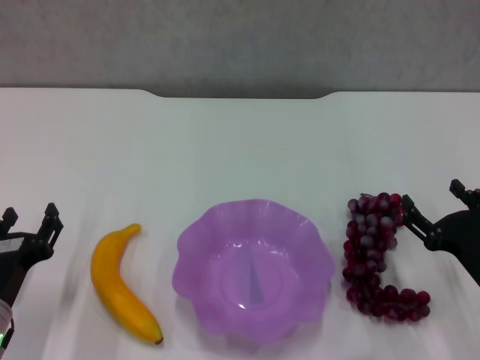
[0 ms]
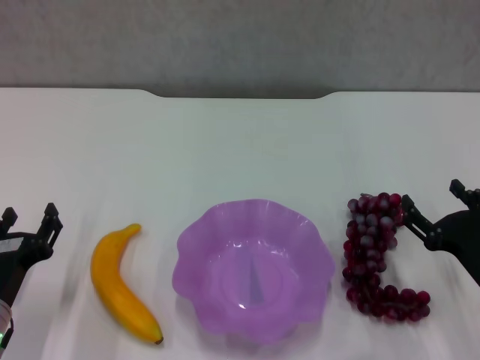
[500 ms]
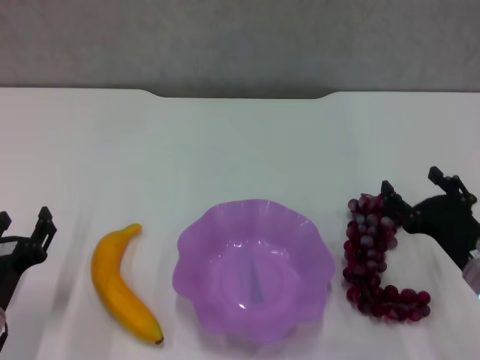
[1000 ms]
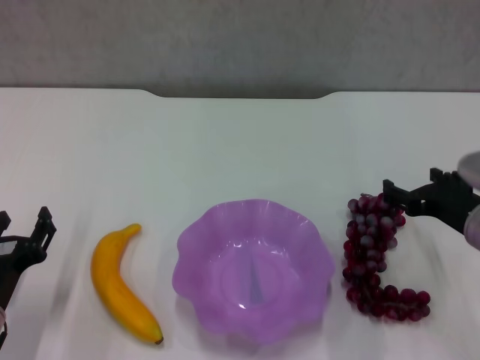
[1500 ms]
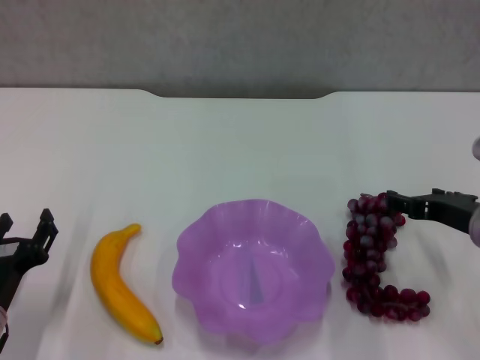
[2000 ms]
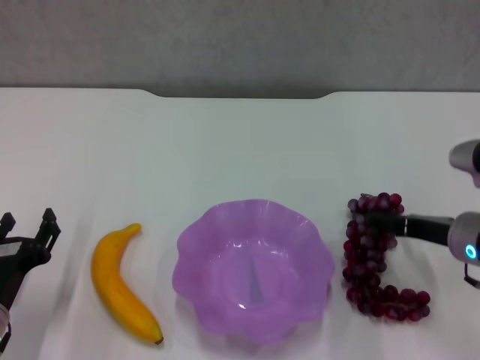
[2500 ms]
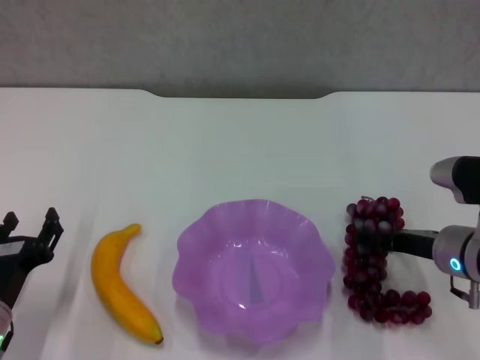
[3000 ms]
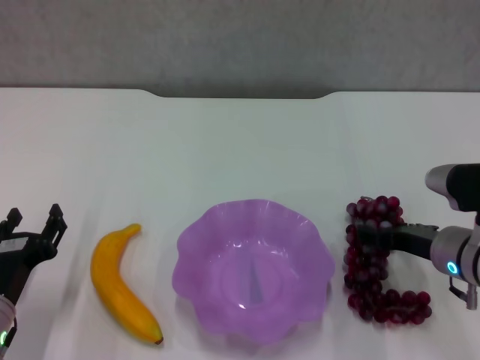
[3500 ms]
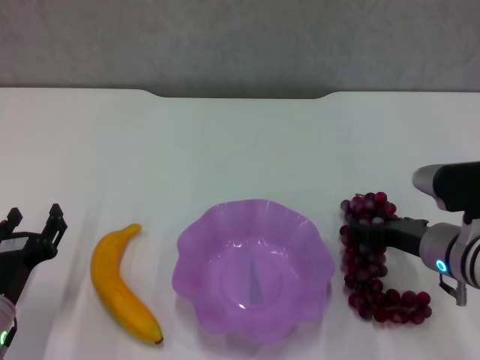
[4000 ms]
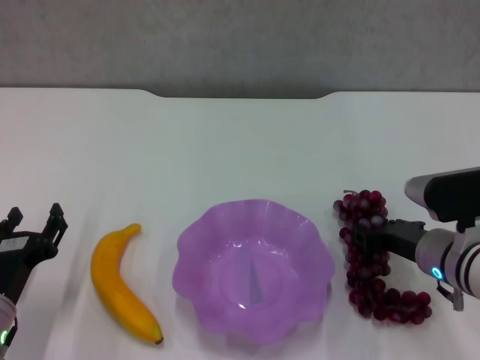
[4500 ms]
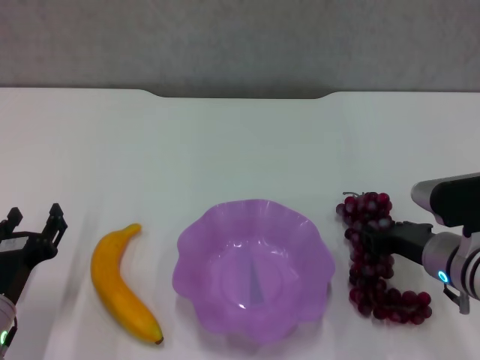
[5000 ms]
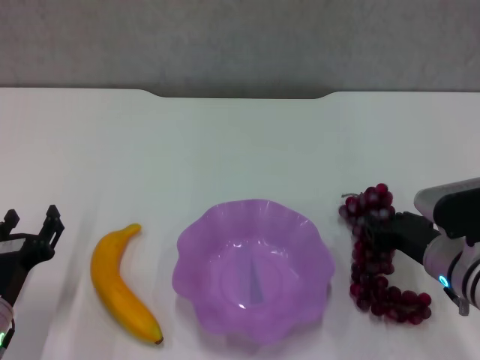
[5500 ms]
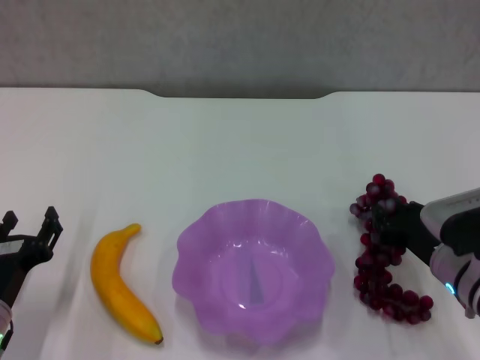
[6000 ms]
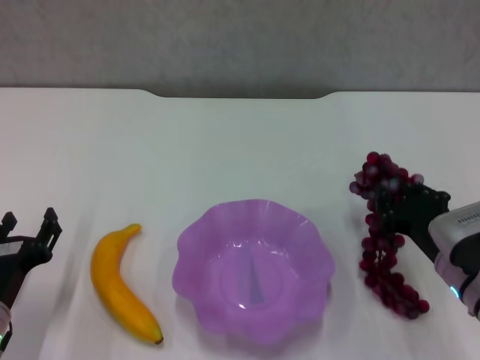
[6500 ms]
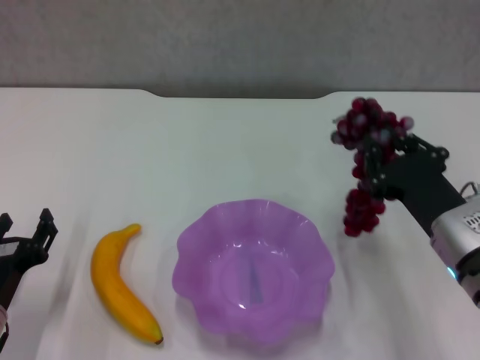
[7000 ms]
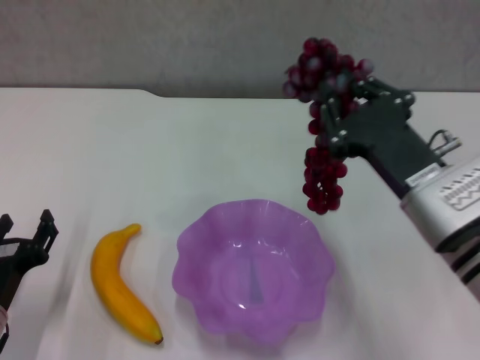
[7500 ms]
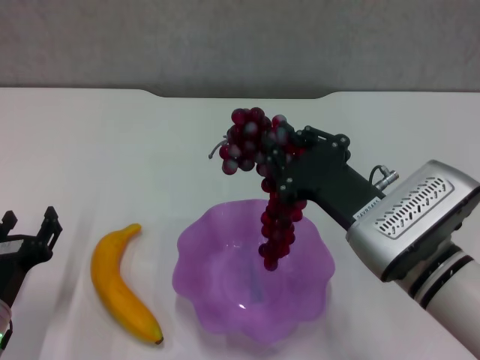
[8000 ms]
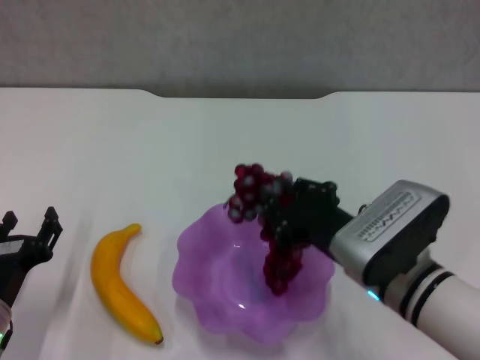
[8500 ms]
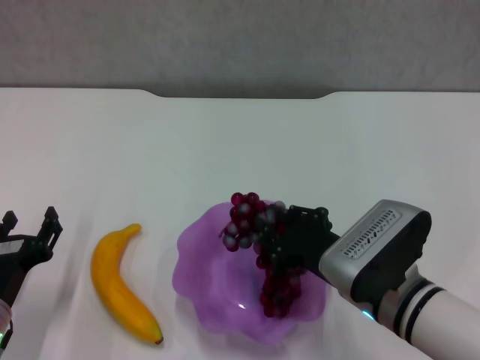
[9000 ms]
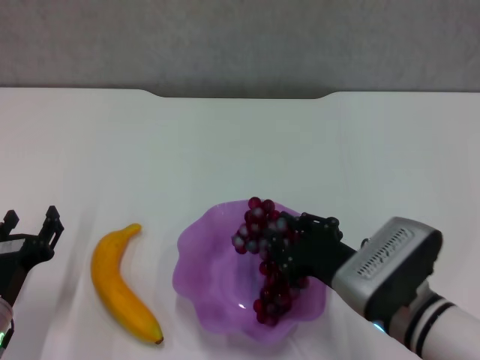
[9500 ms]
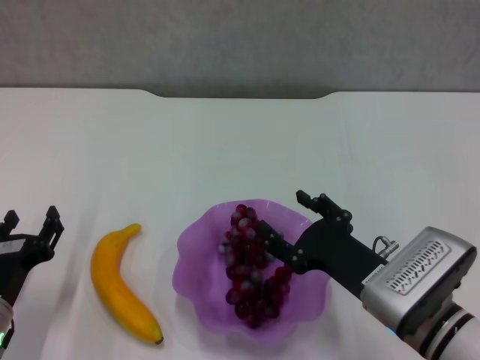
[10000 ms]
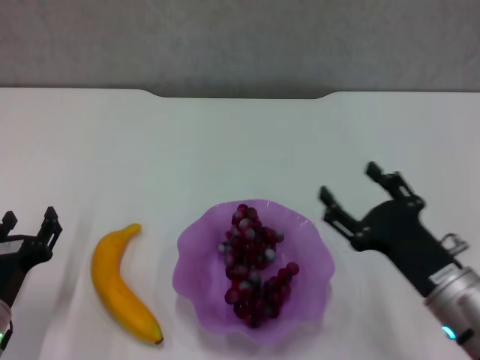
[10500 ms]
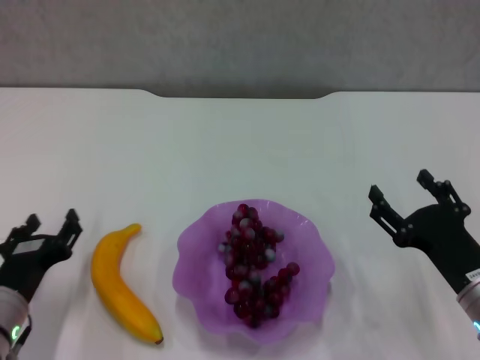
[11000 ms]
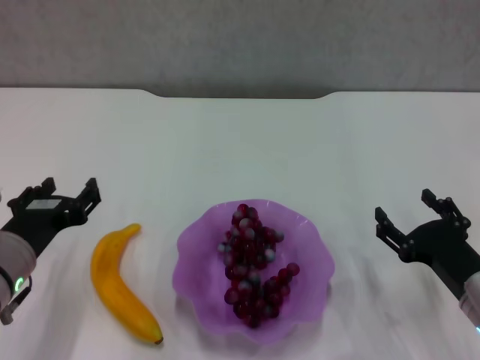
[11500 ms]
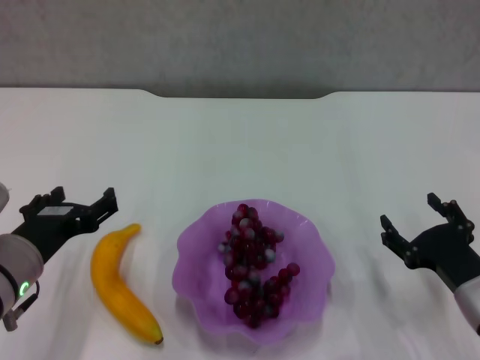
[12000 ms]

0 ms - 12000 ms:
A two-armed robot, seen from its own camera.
Step, 0 ms - 4500 ms: Grasp the grape with right gripper.
Step, 5000 ms - 10000 ms: Place the grape in the purple plate with right gripper.
0 ms - 2000 ms: The right gripper is displaced upward and forward by approximately 10 cm.
2000 ms - 4000 ms: The right gripper ends up roughly 5 cm from where it was.
4000 ms - 6000 ms: The right gripper closes its fingers.
6000 ms - 8000 ms: The right gripper is displaced to the left and upward by some 10 cm.
8000 ms - 10000 ms: The right gripper is displaced downward by about 5 cm, and opens up.
10000 ms - 12000 ms: The left gripper heads upward, covering roughly 10 cm, and opens up, while the right gripper moves to the right, some 10 cm, and opens up.

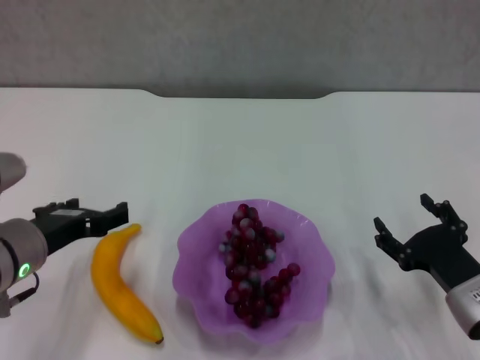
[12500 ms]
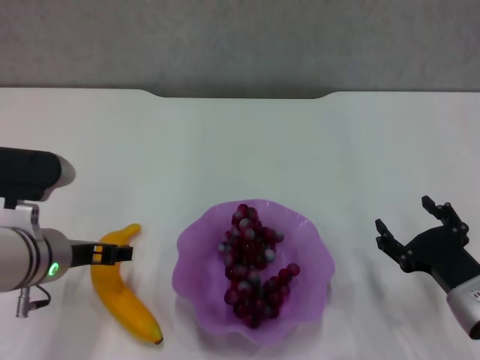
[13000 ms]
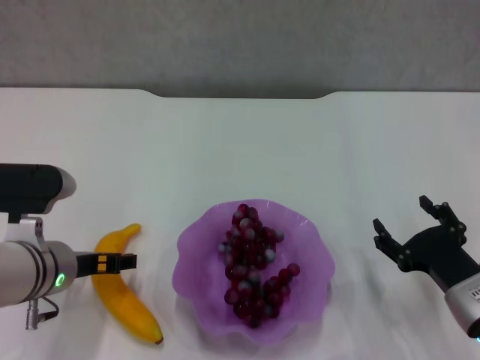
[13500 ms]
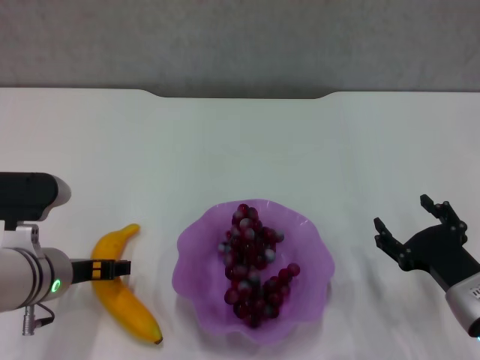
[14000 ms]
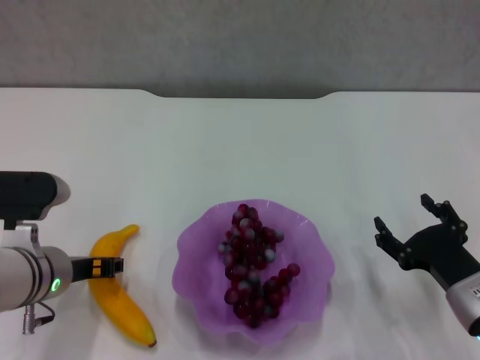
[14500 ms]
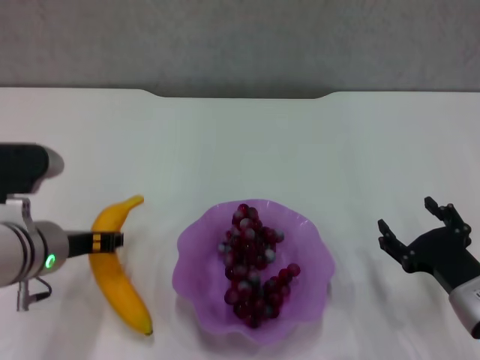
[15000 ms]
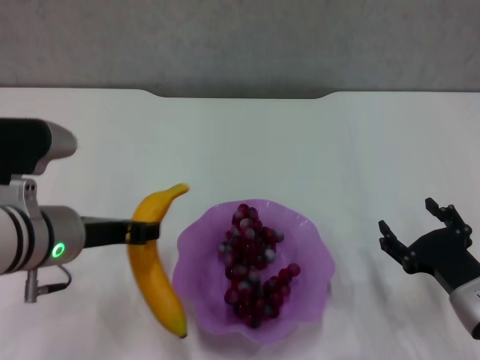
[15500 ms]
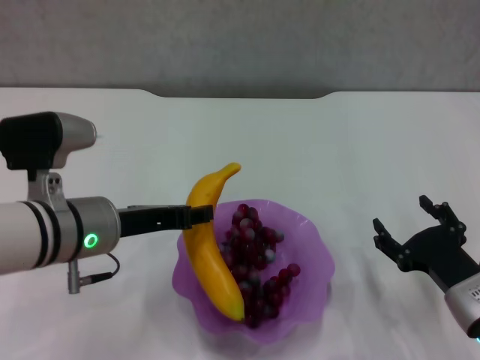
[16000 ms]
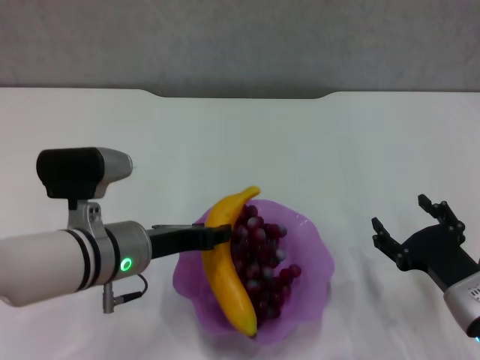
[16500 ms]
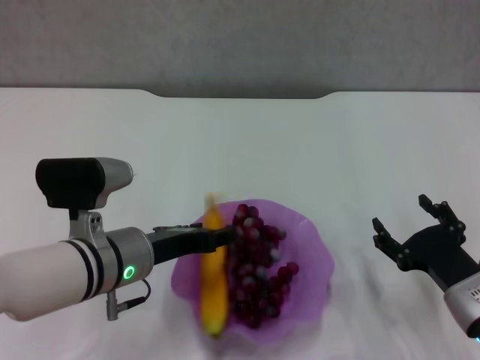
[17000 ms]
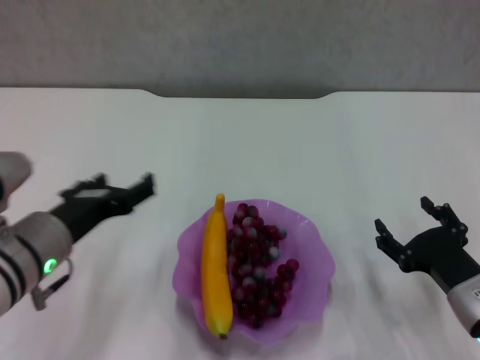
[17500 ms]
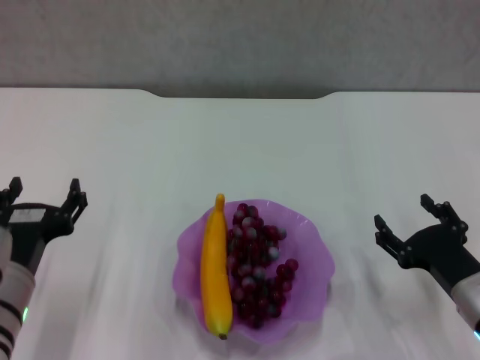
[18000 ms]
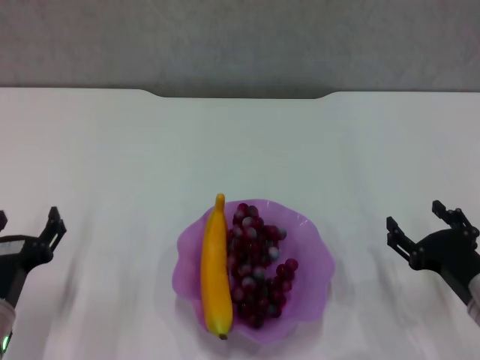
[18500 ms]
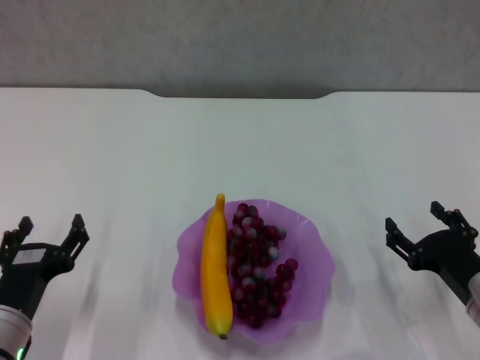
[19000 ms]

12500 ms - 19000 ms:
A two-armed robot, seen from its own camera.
Step, 15000 ms - 17000 ms: Place the banana in the purple plate with left gripper.
12500 ms - 14500 ms: The left gripper closes up.
14500 ms - 17000 ms: The left gripper is displaced to the right by approximately 5 cm.
17000 ms - 19000 ms: The left gripper goes some 15 cm to the left, backward and downward, and opens up.

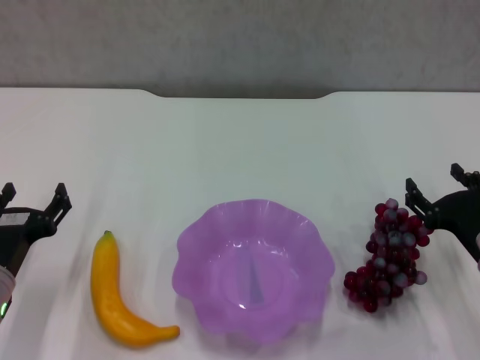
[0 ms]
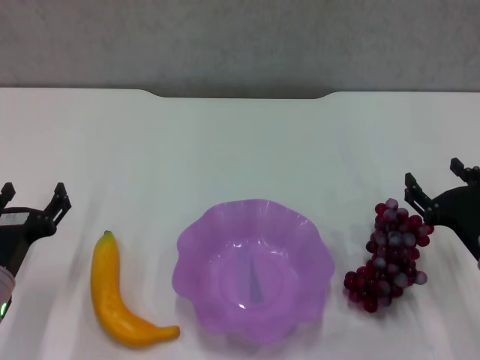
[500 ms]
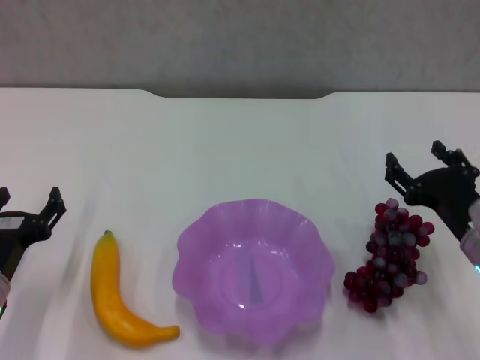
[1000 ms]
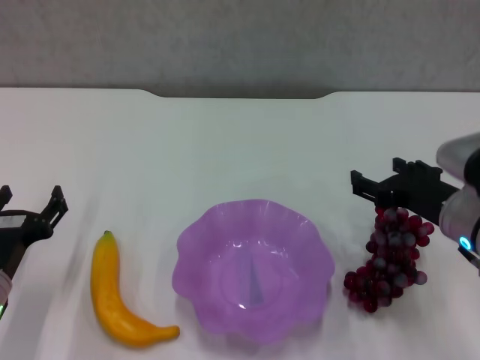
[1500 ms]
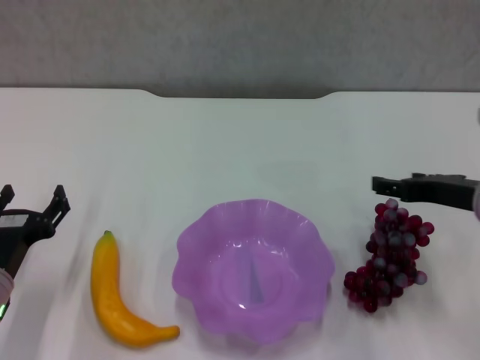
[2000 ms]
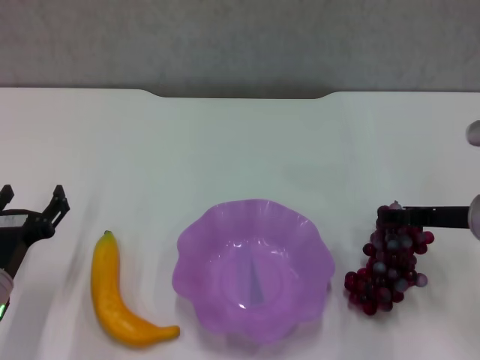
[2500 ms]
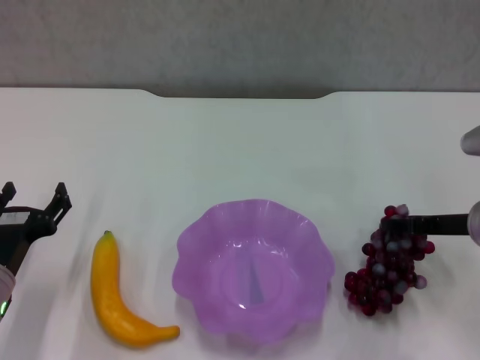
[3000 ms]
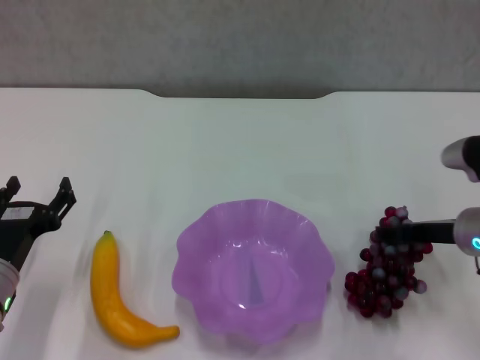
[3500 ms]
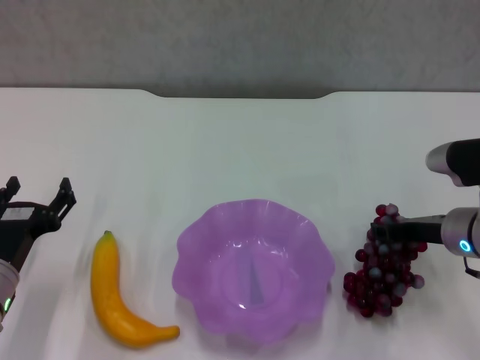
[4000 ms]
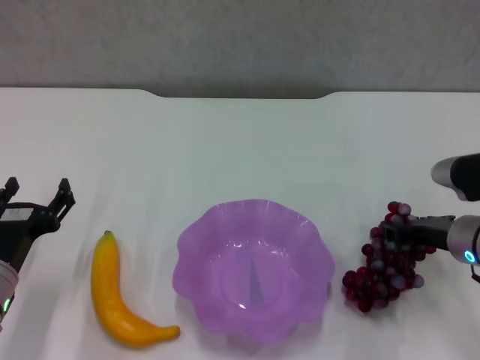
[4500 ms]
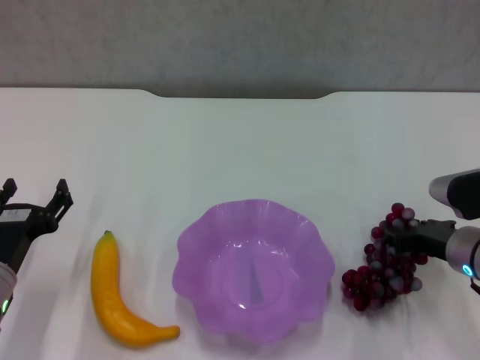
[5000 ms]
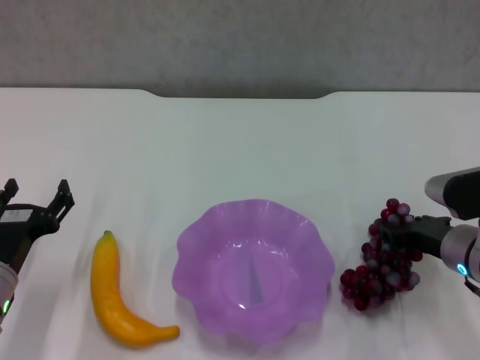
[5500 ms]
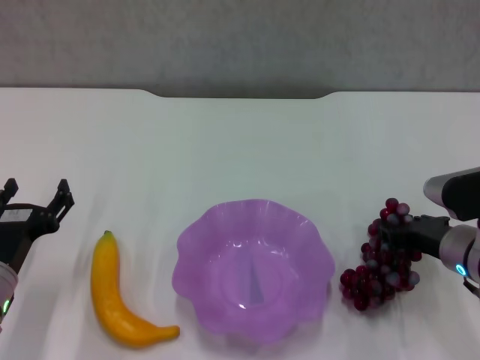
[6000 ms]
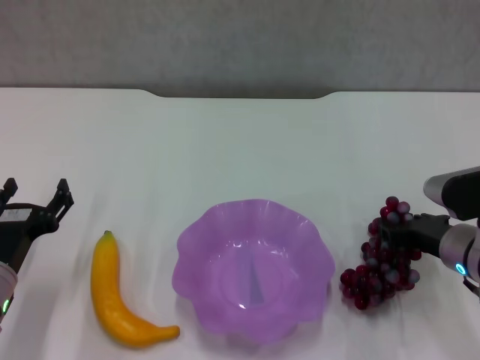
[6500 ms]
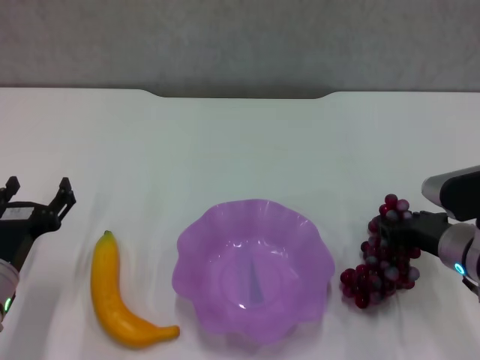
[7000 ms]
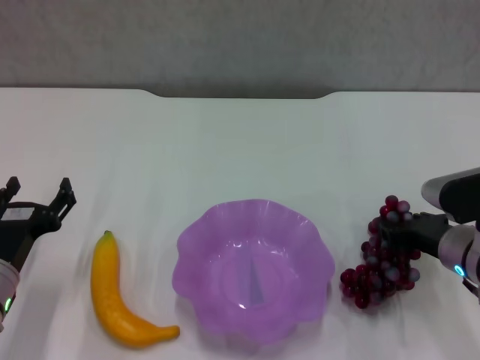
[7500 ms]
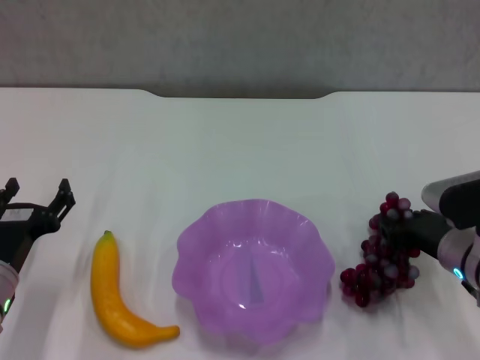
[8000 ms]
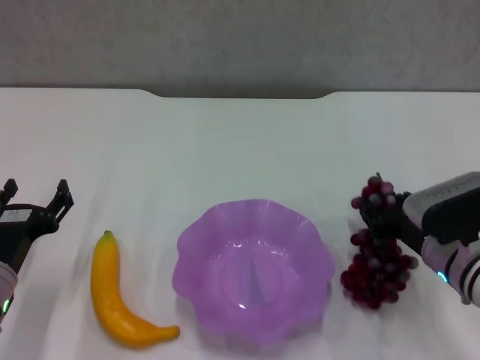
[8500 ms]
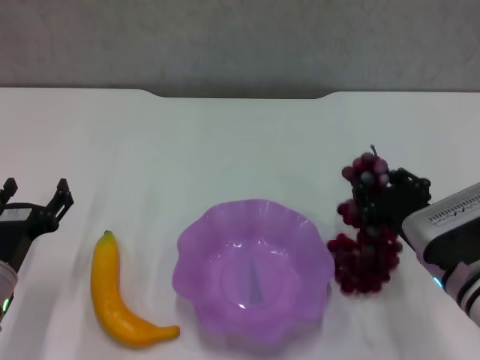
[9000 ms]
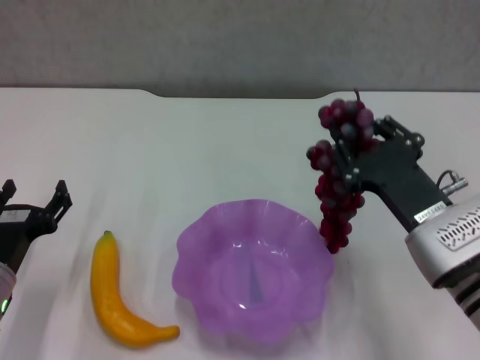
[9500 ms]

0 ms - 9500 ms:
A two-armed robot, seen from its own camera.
Step, 0 ms - 4000 ms: Grasp the grape with right gripper.
0 ms - 2000 ms: The right gripper is displaced upward by some 10 cm.
2000 ms - 4000 ms: The right gripper is displaced downward by some 5 cm, and closes its fingers.
4000 ms - 5500 ms: The right gripper closes up.
5500 ms - 7500 ms: Both grippers stay about where they are.
7500 ms - 9500 ms: The right gripper travels to the left, upward and backward by roughly 10 cm.
